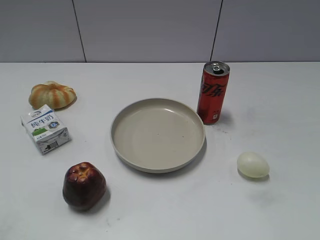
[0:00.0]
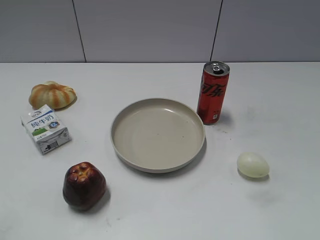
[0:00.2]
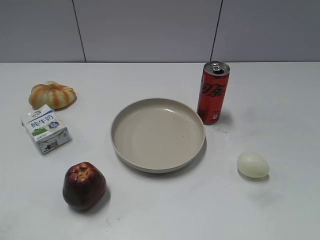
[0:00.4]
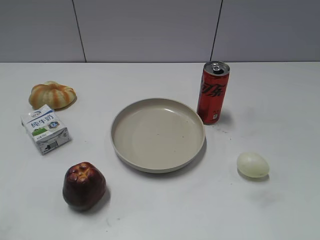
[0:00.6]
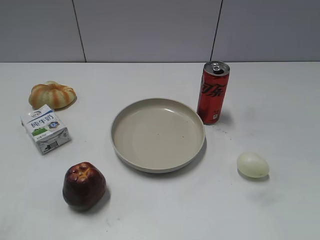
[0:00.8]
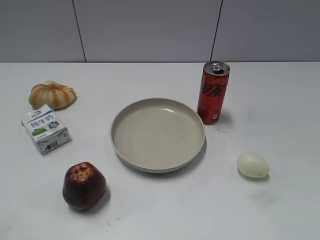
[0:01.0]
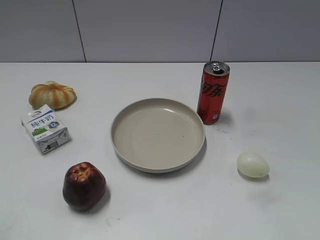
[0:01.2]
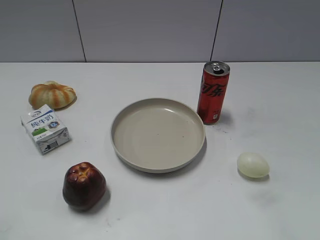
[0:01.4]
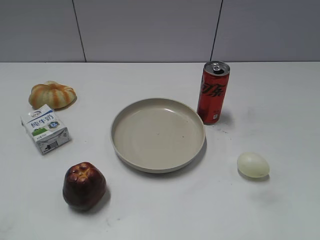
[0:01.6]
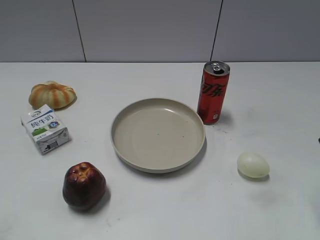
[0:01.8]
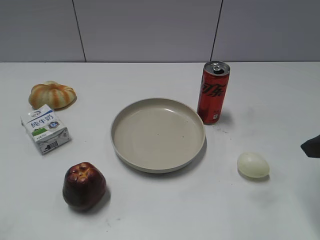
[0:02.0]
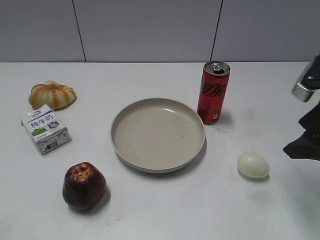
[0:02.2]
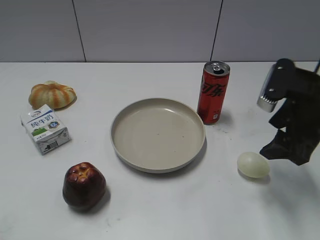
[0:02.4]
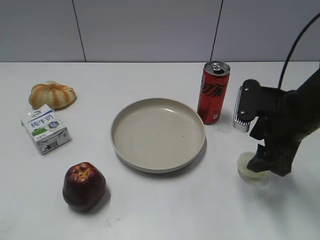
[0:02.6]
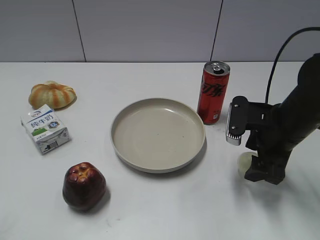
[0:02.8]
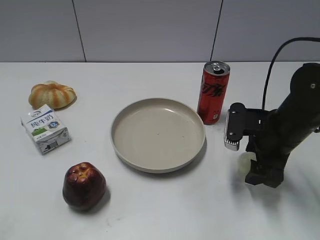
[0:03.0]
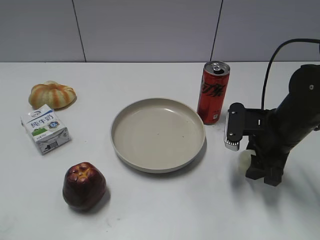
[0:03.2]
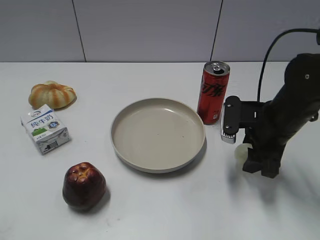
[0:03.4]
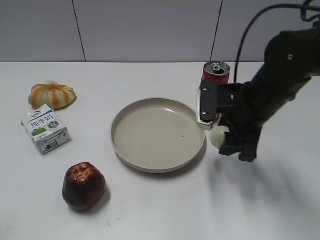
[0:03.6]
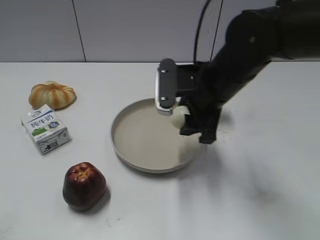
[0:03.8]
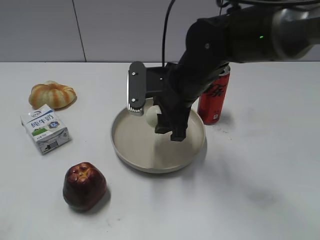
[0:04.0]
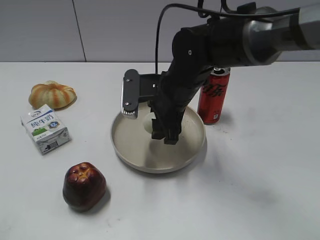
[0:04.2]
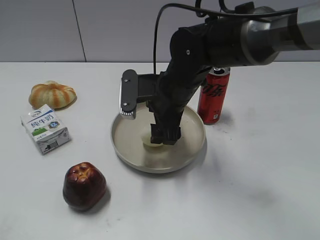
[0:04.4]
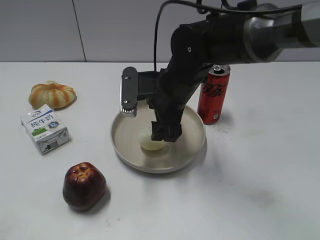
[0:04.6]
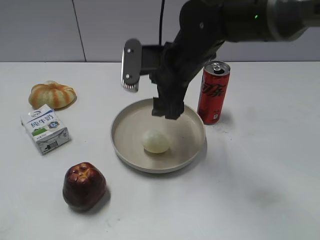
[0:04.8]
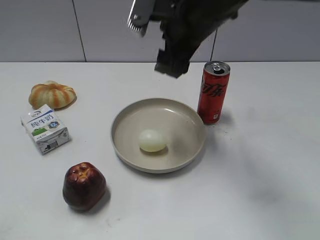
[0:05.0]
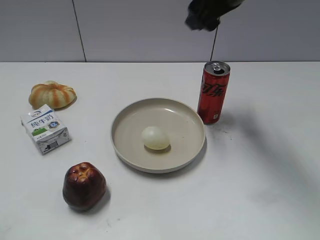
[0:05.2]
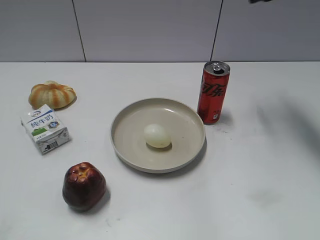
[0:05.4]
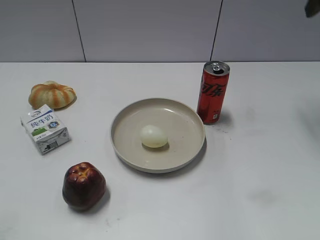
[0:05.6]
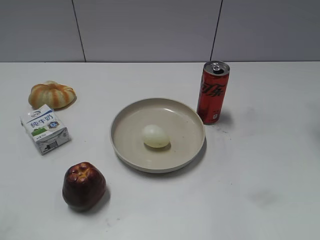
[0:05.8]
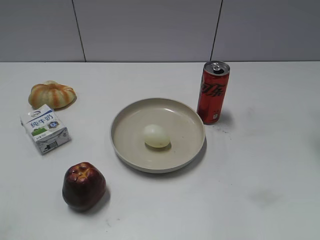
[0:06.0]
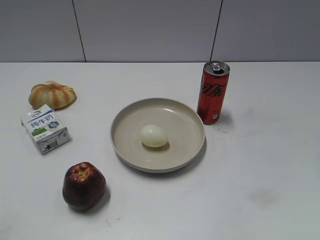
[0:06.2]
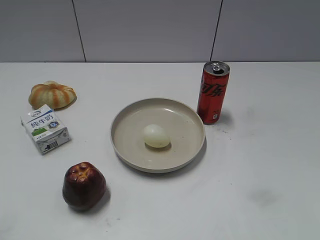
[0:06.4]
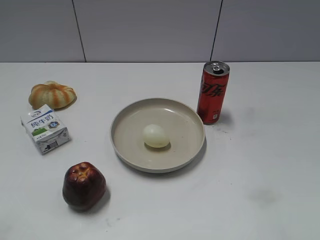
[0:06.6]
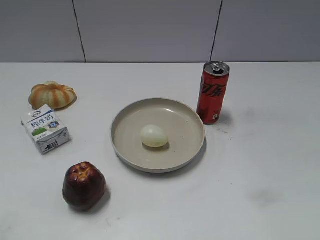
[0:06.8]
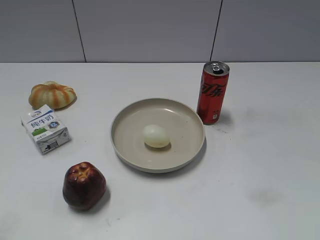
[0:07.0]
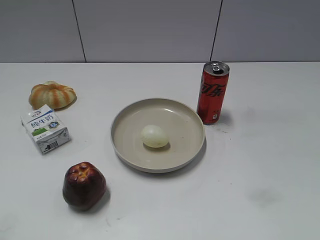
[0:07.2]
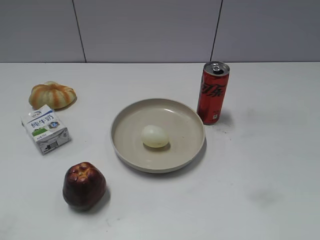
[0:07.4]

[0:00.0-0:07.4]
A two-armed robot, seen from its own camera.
Step, 0:01.0 to 0:03.2: Grasp the egg with right gripper.
Step, 0:03.4 to 0:04.6: Place the egg on the plate with right gripper.
0:01.4 to 0:03.0: The right gripper is displaced downward, forward and to the left by about 25 cm.
0:03.0 to 0:04.4: The right gripper goes some 20 cm to the left, and closes, then opens again.
0:04.4 to 0:06.0: The right gripper travels to the right and upward by about 35 cm.
